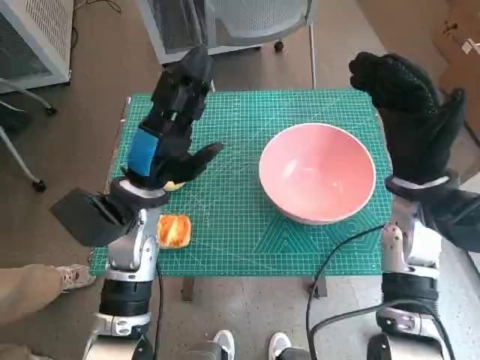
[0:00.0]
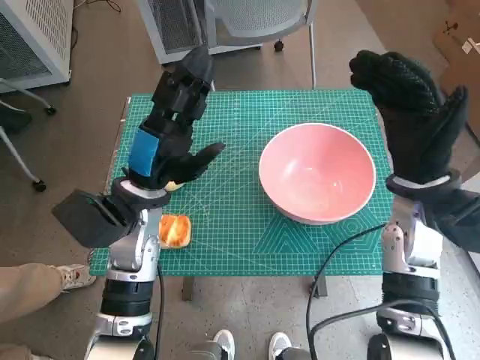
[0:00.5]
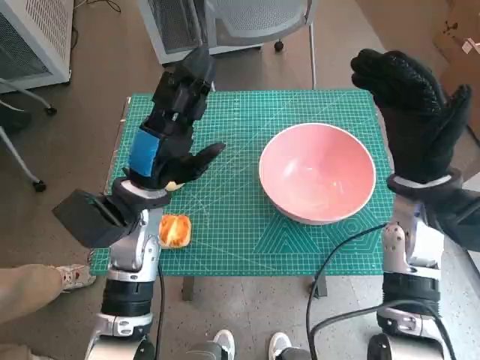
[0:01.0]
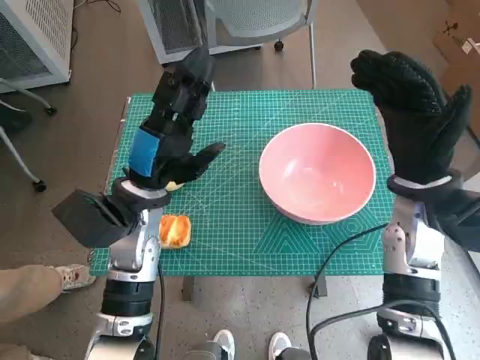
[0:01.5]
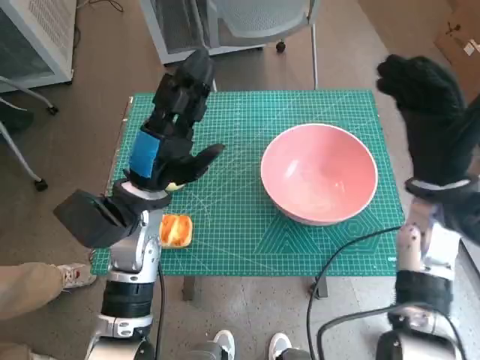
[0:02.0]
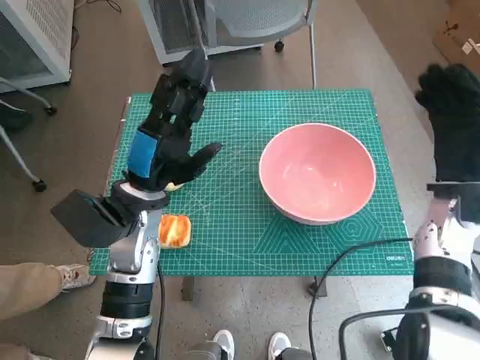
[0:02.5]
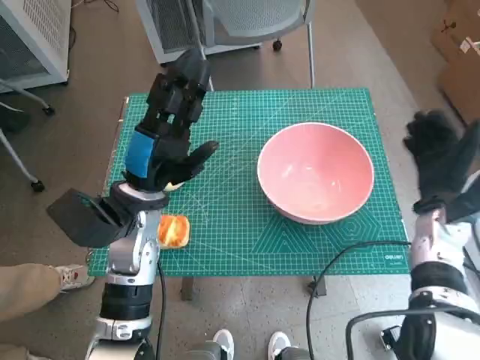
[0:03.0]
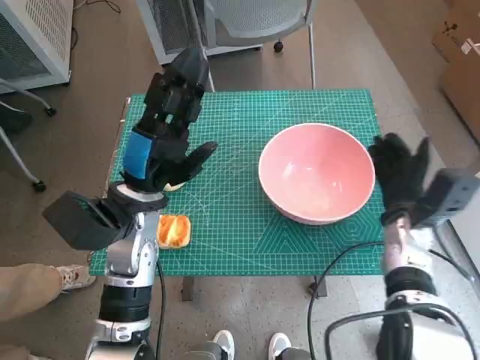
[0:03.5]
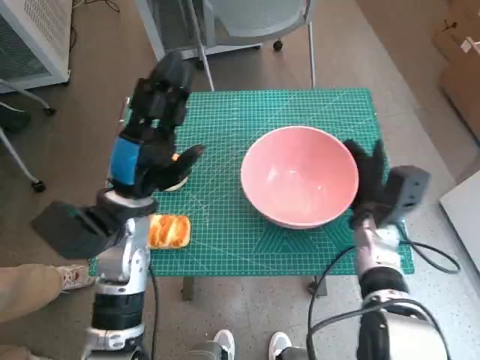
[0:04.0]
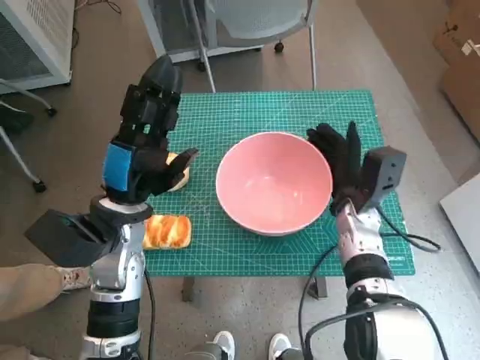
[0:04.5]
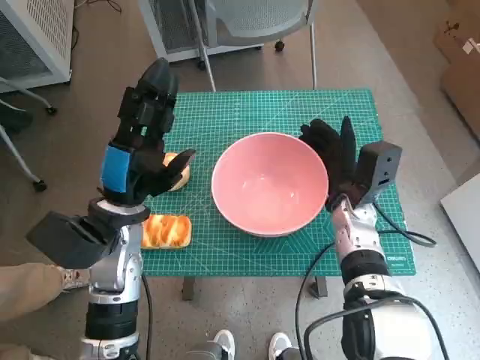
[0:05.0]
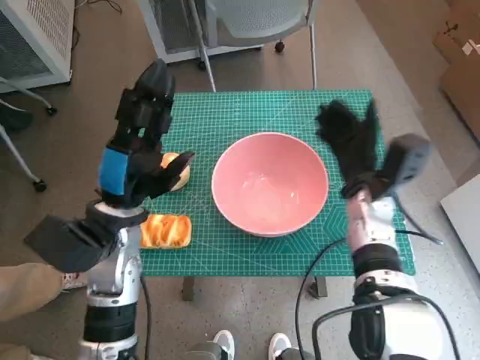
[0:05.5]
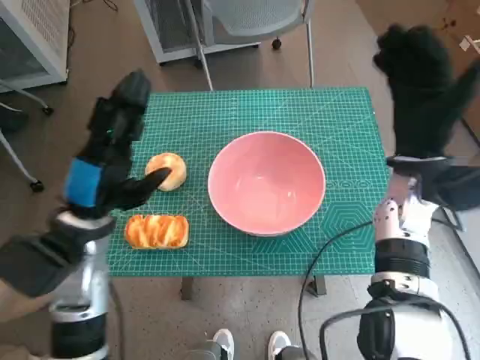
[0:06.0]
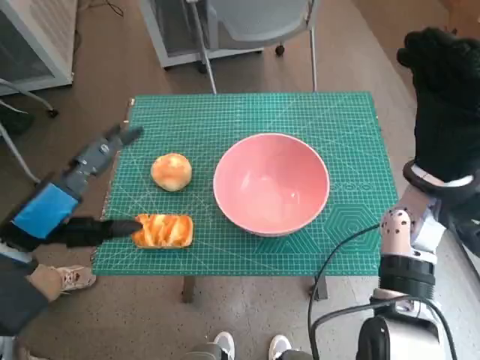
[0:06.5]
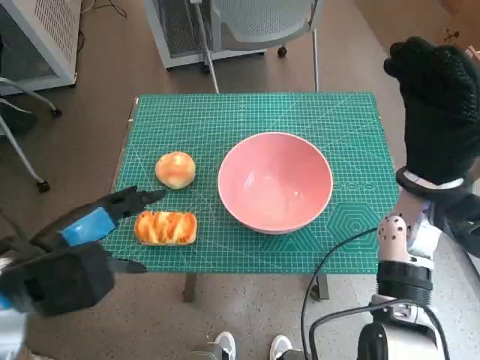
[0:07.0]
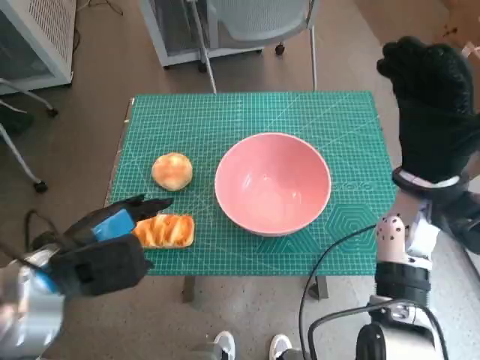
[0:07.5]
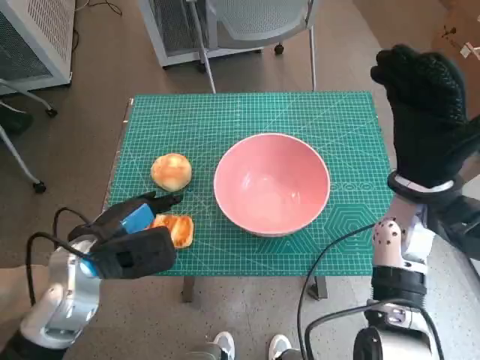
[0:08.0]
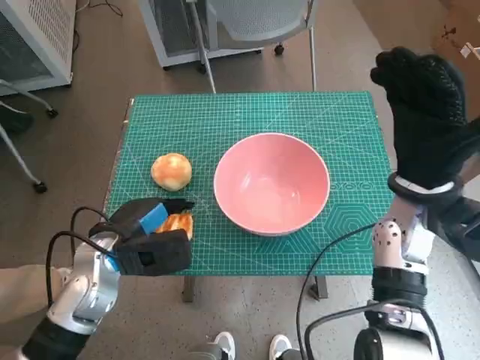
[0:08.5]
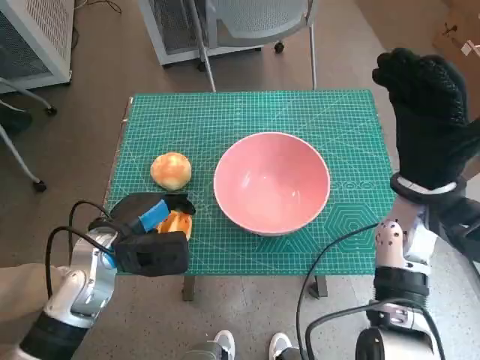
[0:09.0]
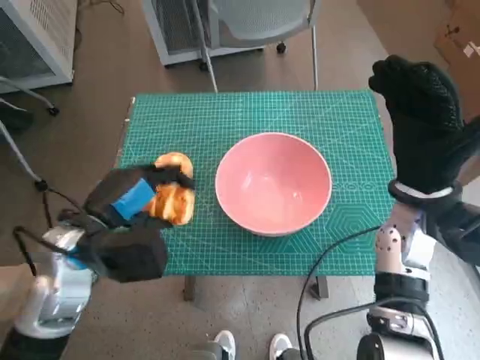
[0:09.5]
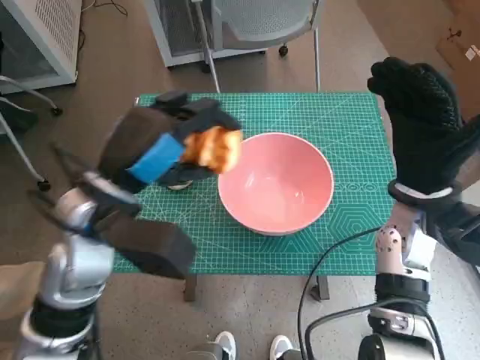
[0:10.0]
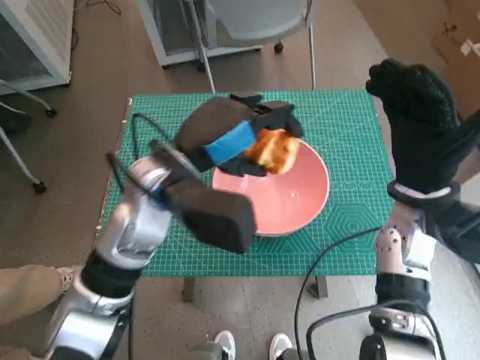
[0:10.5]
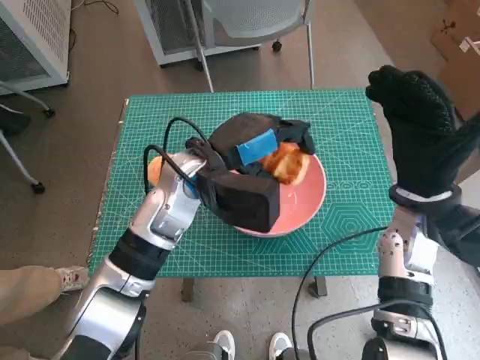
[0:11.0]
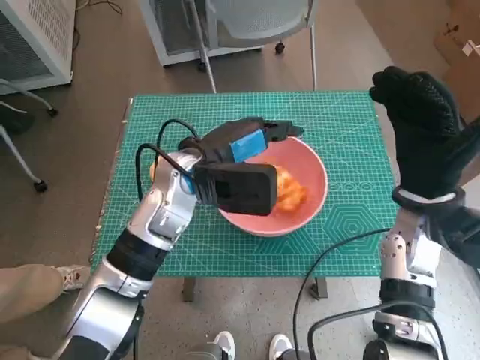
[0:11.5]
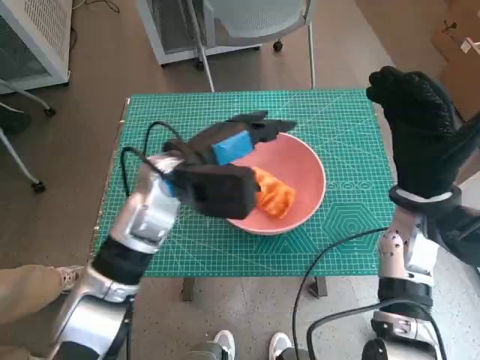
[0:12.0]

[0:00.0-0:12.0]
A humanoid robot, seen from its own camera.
Step, 0:00.0 to 0:05.0: Move the pink bowl to the center of table with right hand.
Step, 0:05.5 to 0:09.0: Grasp the long bread with left hand.
Step, 0:09.5 to 0:11.5: Place the long bread in pink bowl with left hand.
0:02.0 to 0:04.0: The right hand travels downward by roughly 10 cm.
0:04.0 to 0:06.0: The left hand changes place by about 5 cm, while the right hand is displaced upward by about 10 cm.
0:06.0 to 0:08.0: The left hand moves approximately 5 cm upward and comes back.
0:08.0 to 0:10.0: The left hand shifts approximately 10 cm upward.
0:10.0 to 0:12.0: The left hand is displaced forward and to the right by about 10 cm.

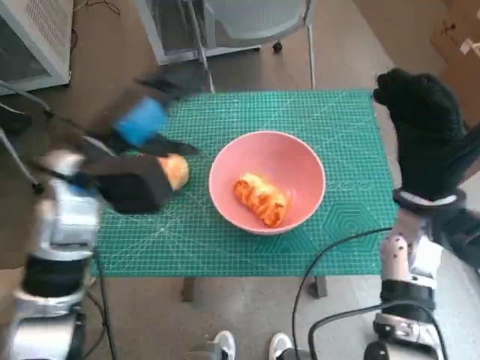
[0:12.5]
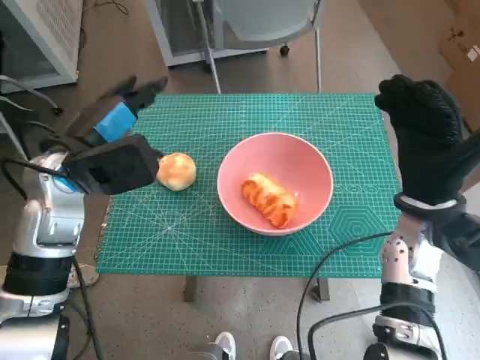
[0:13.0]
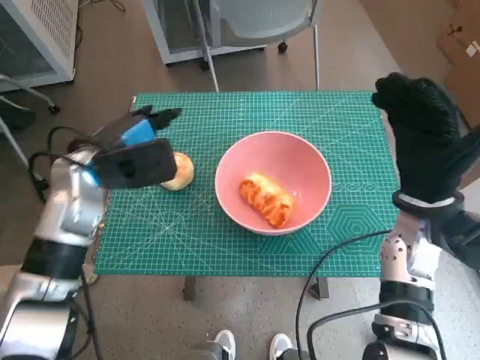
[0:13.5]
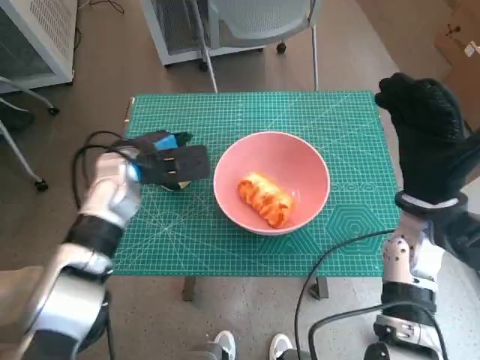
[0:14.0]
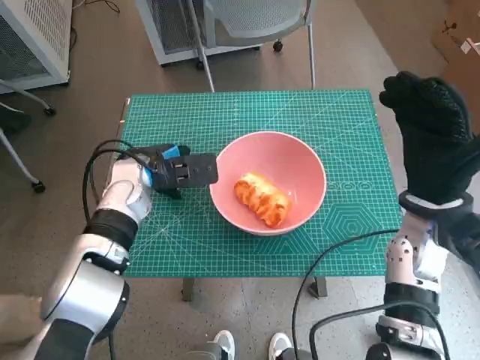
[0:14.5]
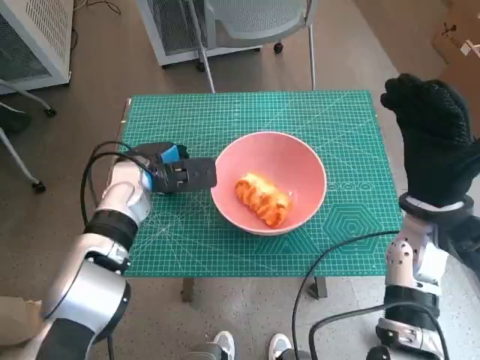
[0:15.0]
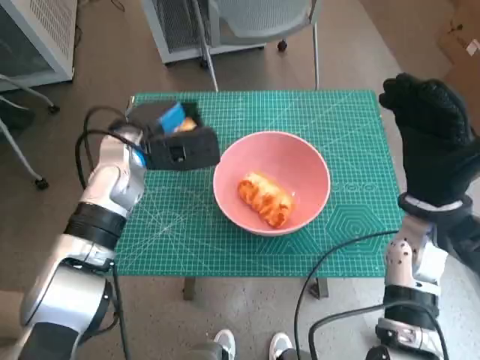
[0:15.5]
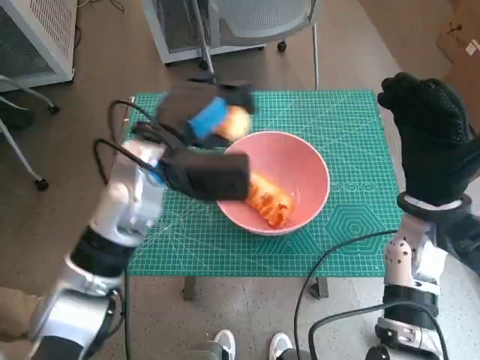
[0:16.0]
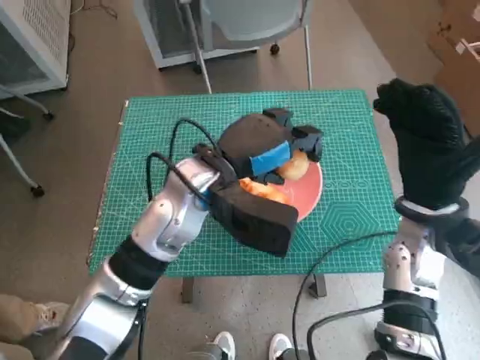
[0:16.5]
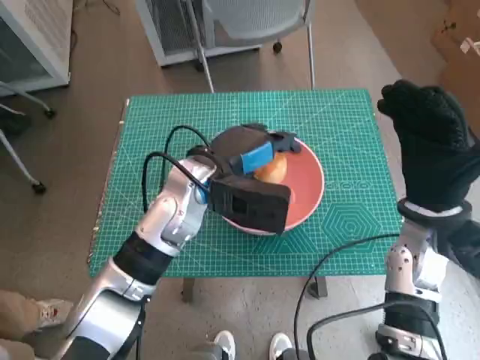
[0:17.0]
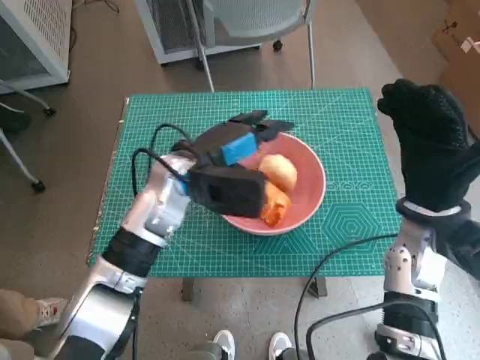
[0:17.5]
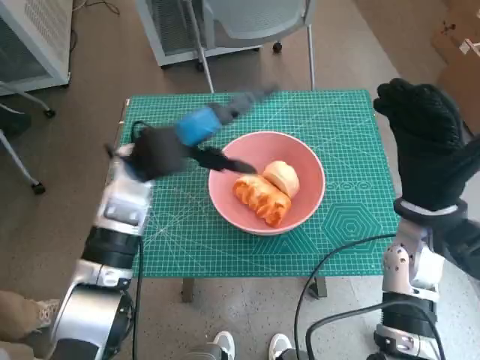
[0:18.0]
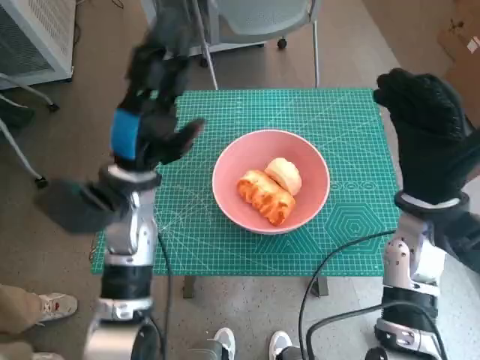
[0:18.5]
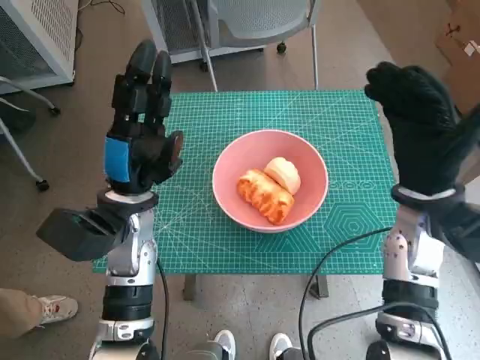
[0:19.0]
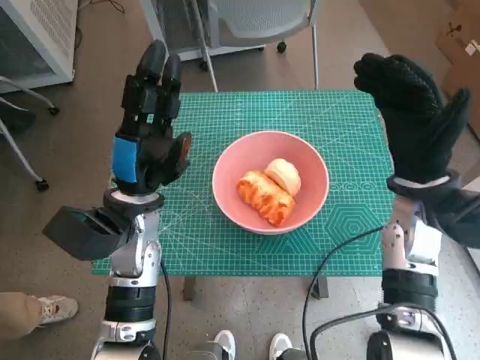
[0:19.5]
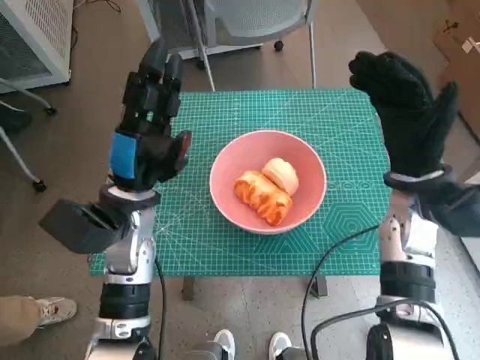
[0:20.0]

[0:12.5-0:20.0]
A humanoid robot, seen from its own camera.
Step, 0:12.5 to 0:14.5: Grasp the round bread with left hand.
Step, 0:15.0 to 0:17.0: Place the round bread in pink bowl with left hand.
0:12.5 to 0:14.5: The left hand heads downward and forward, covering about 10 cm.
0:14.5 to 0:16.5: The left hand shifts about 15 cm to the right, upward and backward.
0:16.5 to 0:18.0: The left hand travels to the left by about 10 cm.
0:18.0 to 0:20.0: The left hand is displaced backward by approximately 5 cm.

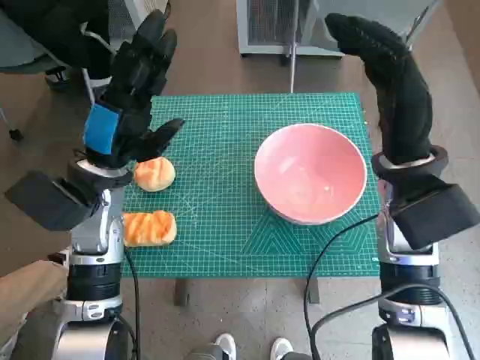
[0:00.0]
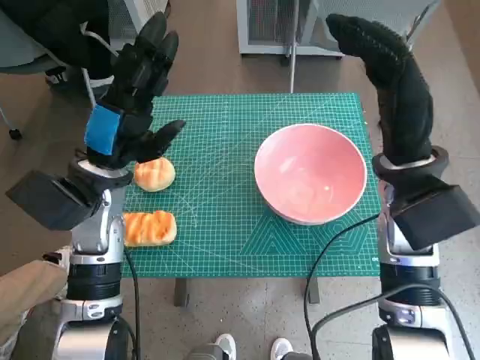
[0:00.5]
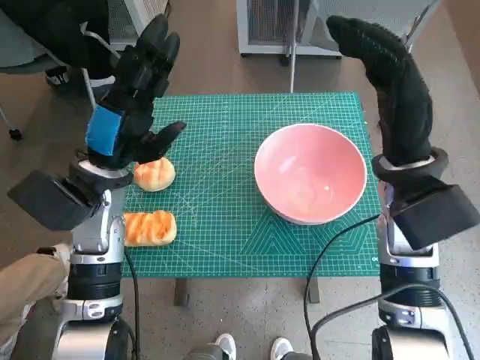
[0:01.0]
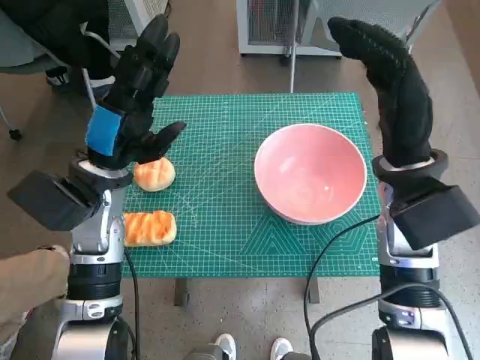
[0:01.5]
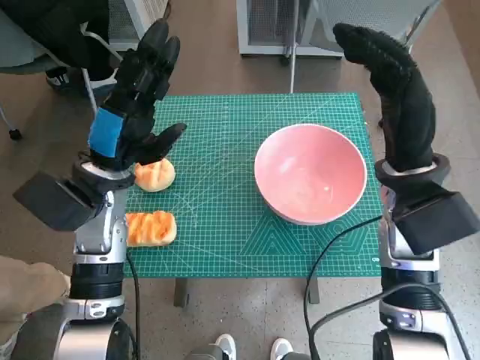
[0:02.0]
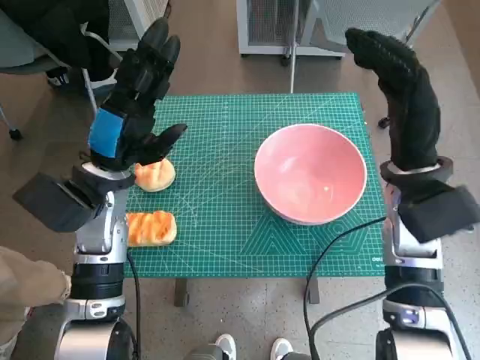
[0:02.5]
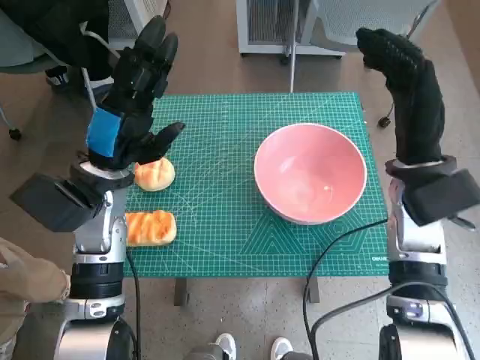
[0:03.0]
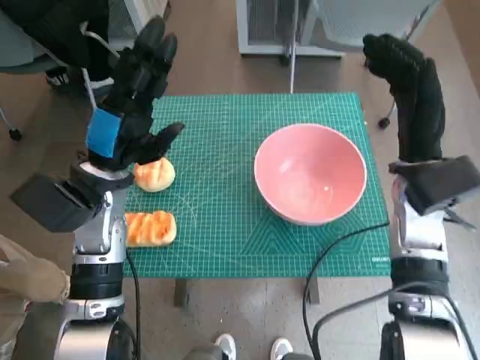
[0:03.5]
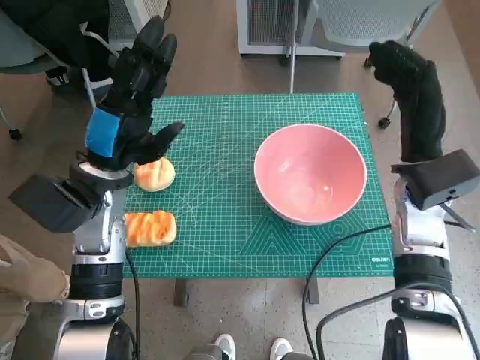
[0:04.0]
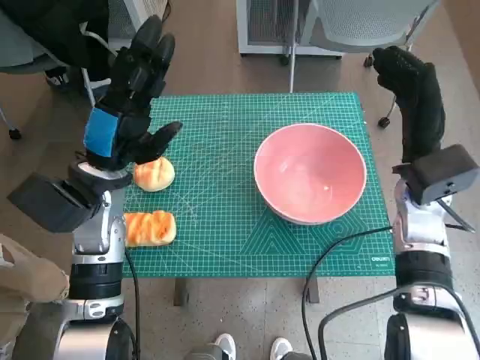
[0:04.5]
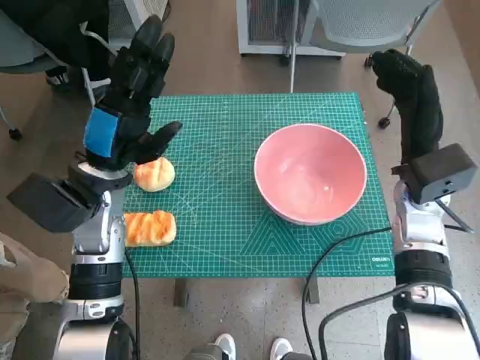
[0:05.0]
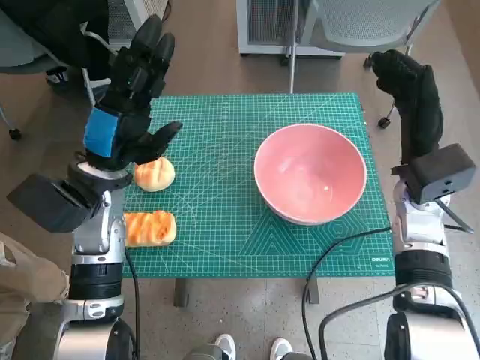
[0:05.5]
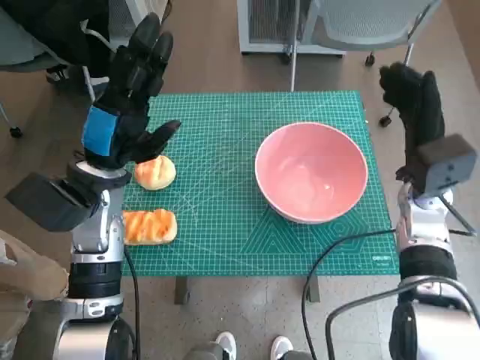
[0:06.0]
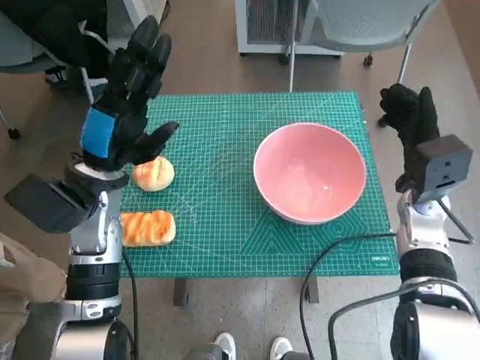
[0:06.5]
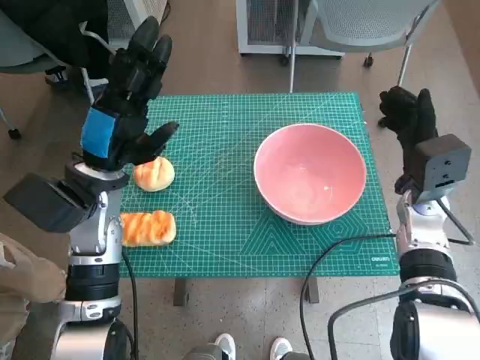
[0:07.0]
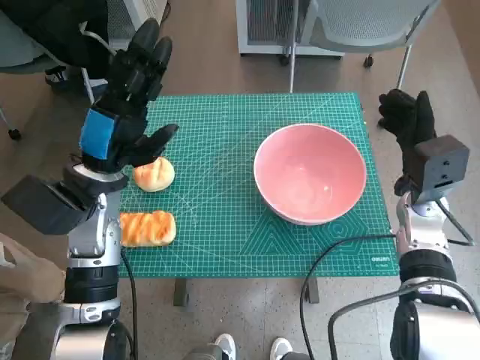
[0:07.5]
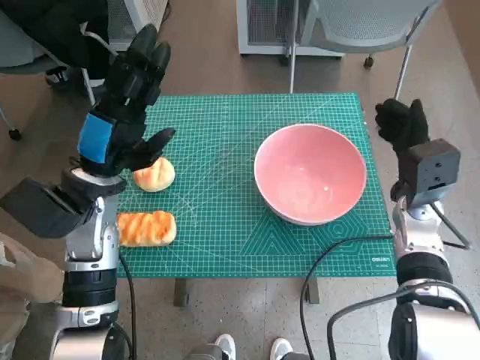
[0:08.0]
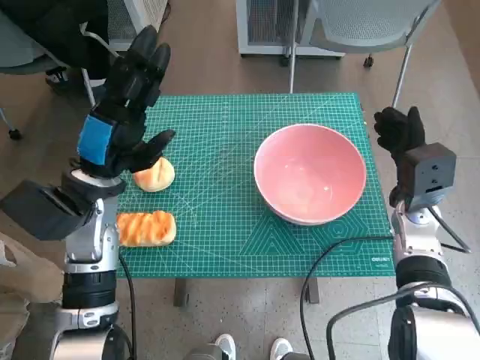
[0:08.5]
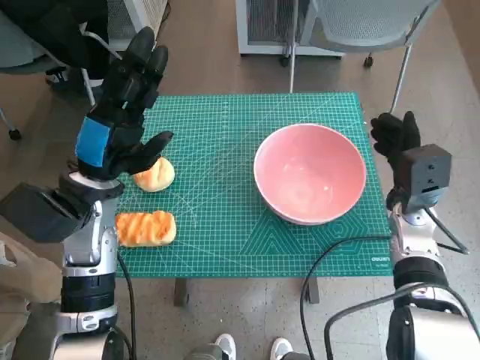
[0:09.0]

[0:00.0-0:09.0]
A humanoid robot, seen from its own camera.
0:02.0 to 0:04.5: The right hand shifts by approximately 5 cm.
0:07.0 to 0:09.0: The hands move only a little.
